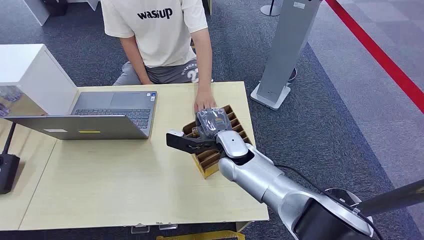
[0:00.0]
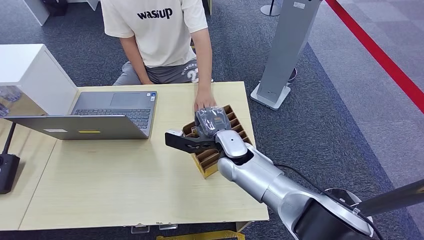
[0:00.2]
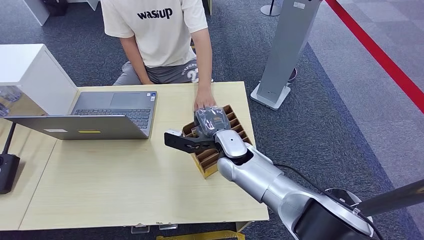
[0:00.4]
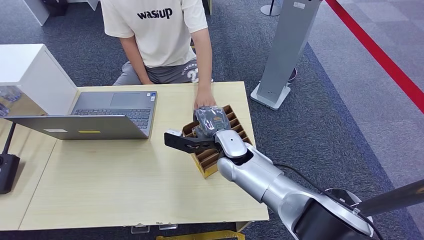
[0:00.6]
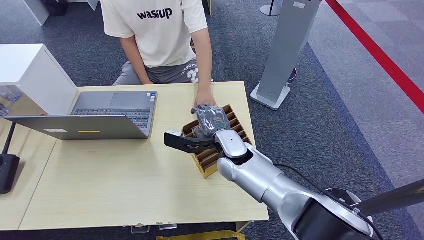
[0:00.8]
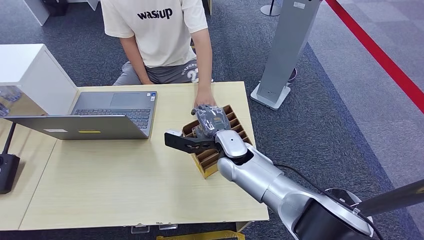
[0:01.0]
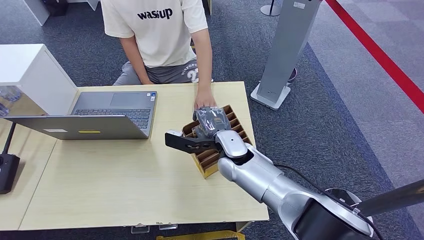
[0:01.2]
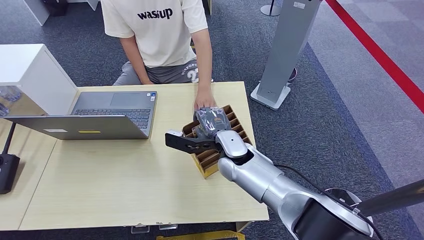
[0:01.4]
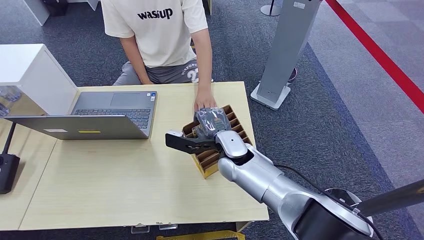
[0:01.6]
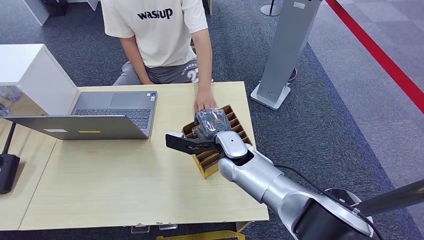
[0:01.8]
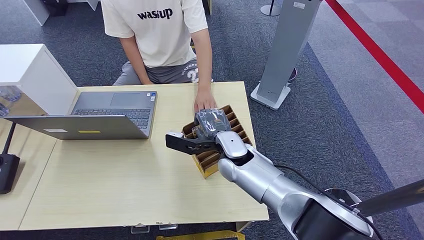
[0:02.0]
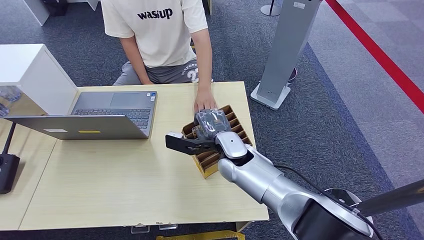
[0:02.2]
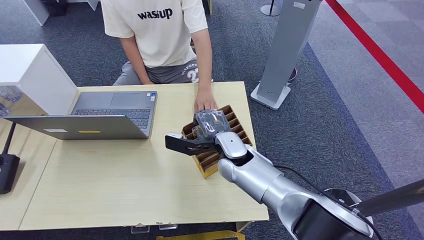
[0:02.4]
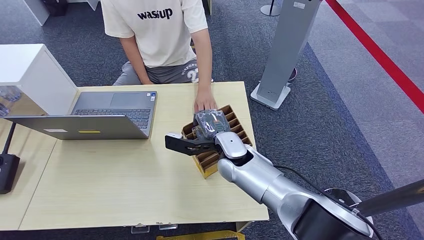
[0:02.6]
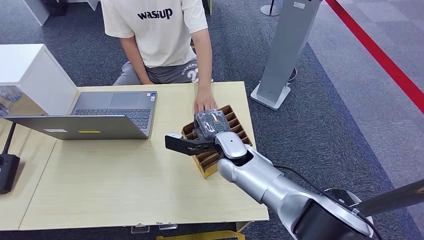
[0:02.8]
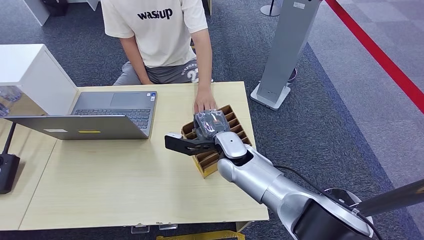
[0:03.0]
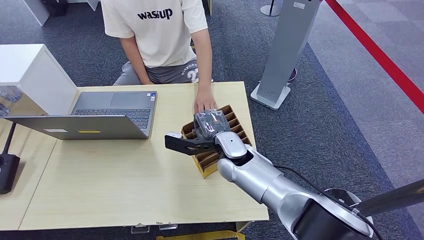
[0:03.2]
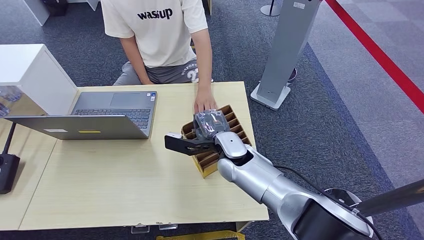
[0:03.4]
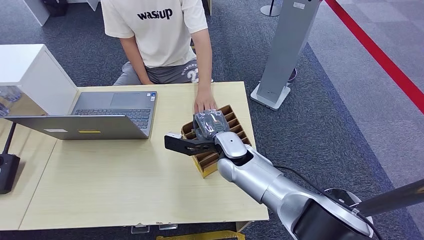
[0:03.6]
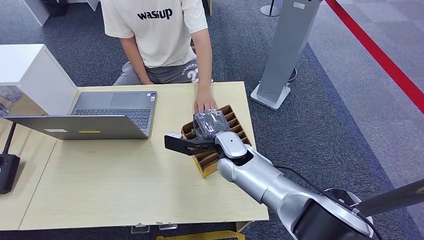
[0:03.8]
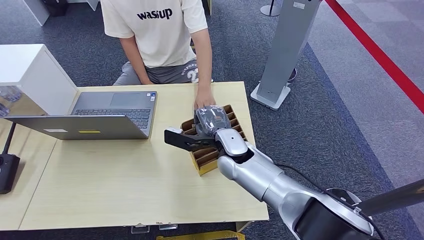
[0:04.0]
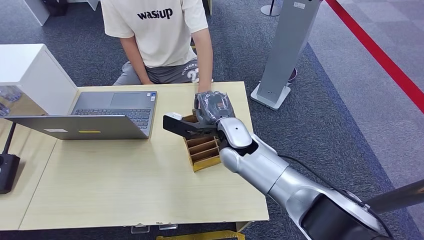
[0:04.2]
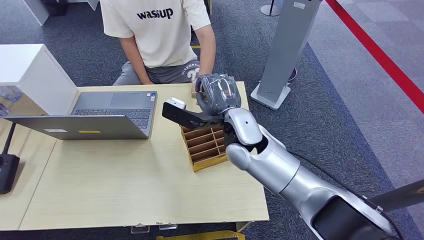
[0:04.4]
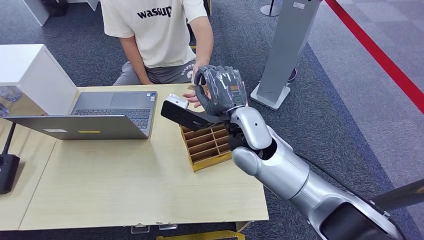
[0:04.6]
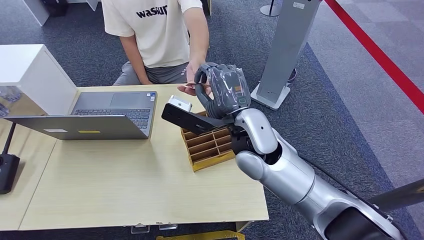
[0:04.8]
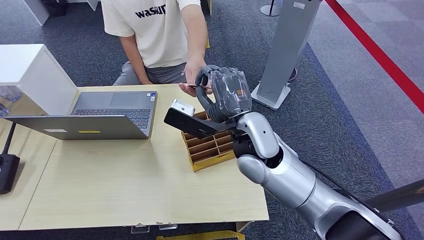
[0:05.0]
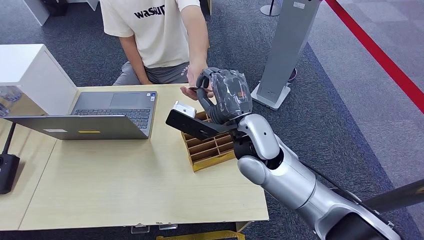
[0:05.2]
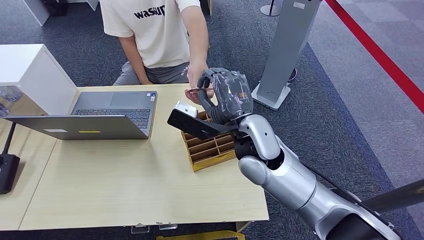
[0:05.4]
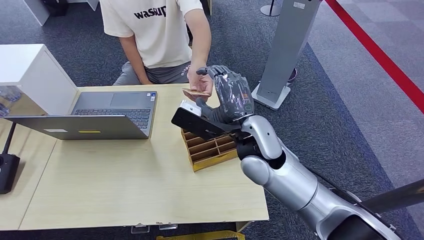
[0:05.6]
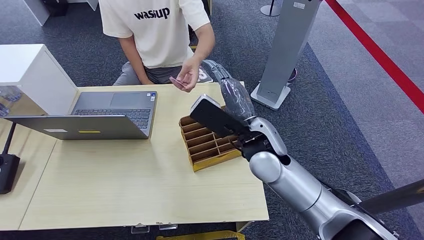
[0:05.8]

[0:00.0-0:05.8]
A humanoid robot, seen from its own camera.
Step, 0:00.0 to 0:04.4: Pick up the key card from the card box.
Step, 0:04.8 to 0:05.8: Hand the key card to the target.
0:01.4 to 0:02.8: Neither hand changes place.
0:02.8 to 0:04.4: The right hand goes some 10 cm upward.
0:04.4 to 0:05.8: The right hand shifts by some 5 cm.

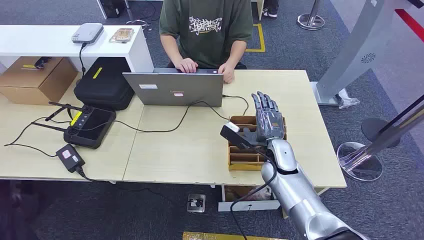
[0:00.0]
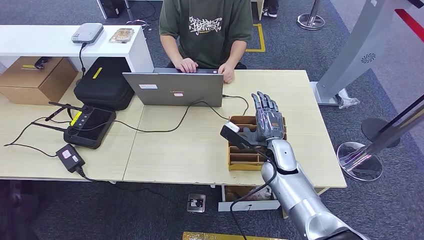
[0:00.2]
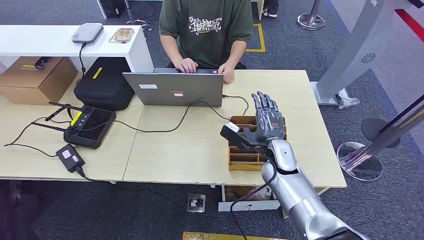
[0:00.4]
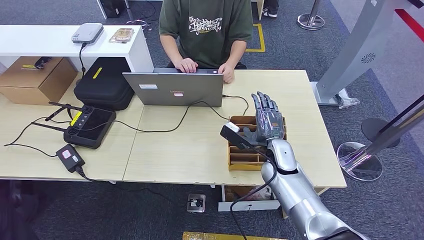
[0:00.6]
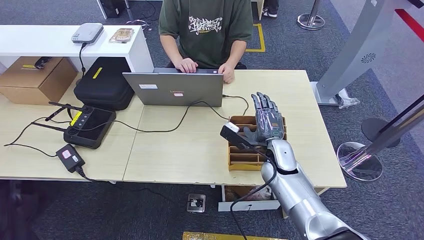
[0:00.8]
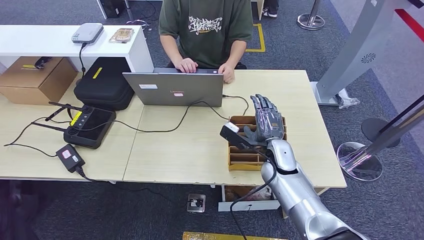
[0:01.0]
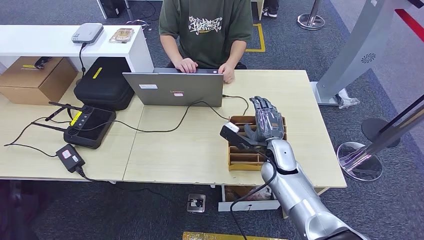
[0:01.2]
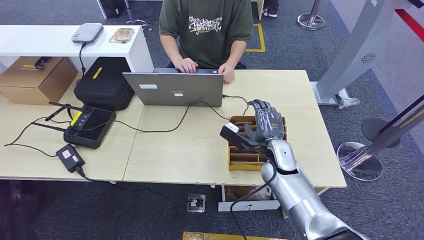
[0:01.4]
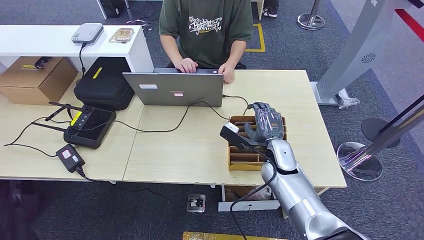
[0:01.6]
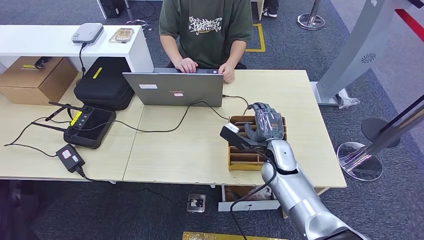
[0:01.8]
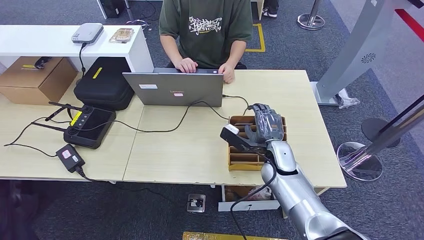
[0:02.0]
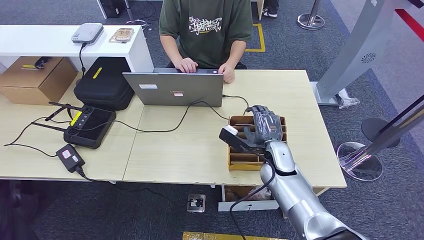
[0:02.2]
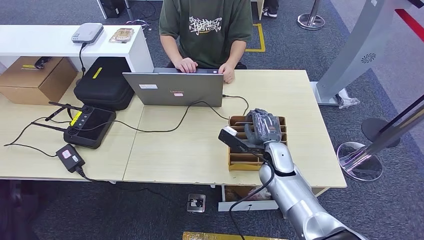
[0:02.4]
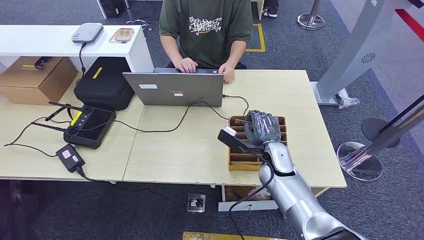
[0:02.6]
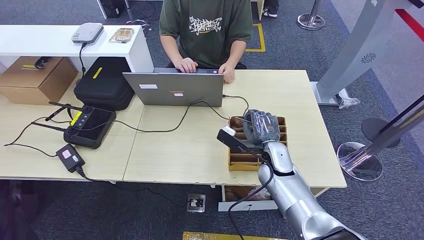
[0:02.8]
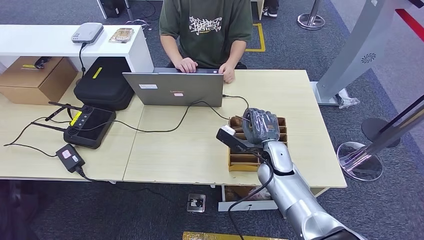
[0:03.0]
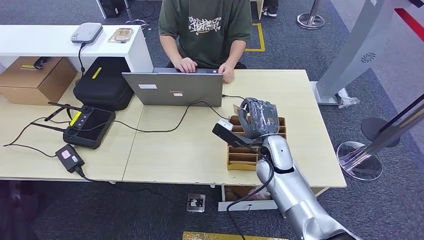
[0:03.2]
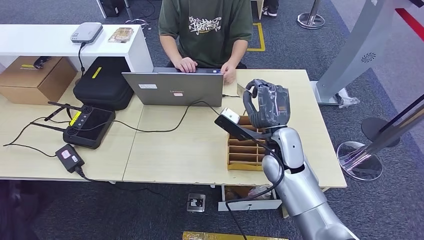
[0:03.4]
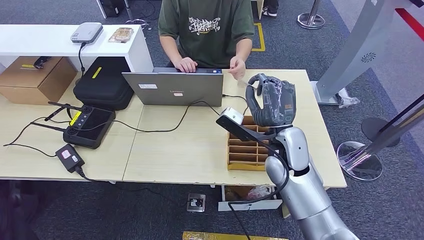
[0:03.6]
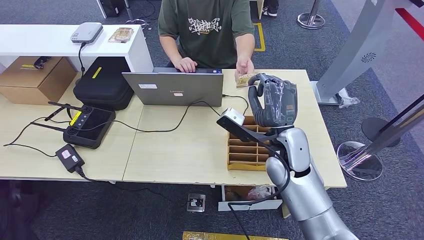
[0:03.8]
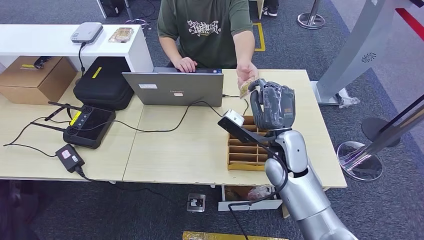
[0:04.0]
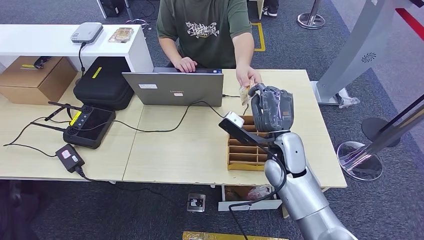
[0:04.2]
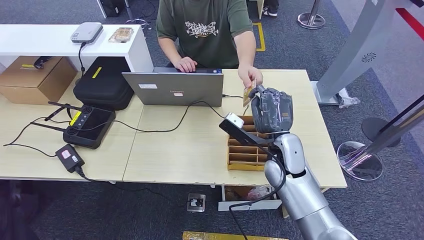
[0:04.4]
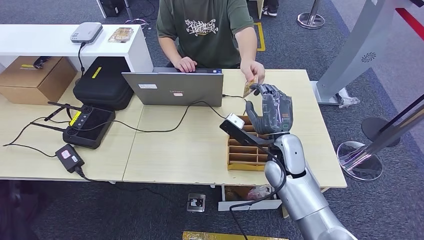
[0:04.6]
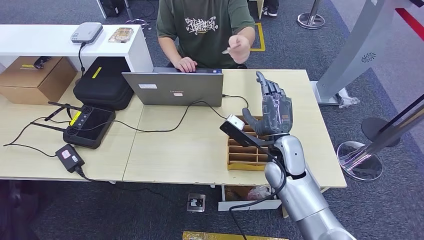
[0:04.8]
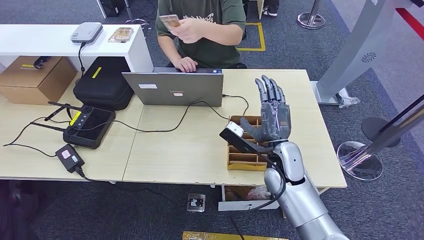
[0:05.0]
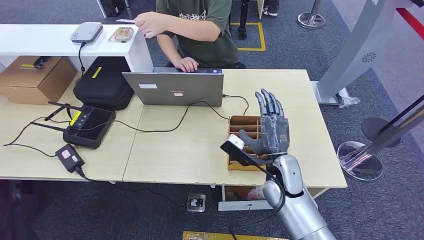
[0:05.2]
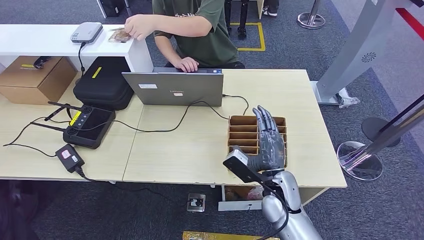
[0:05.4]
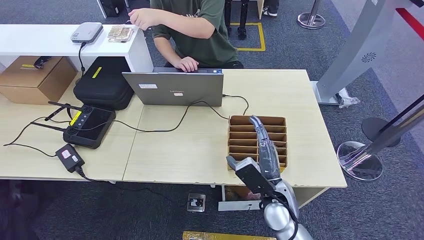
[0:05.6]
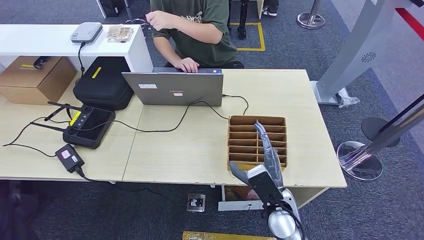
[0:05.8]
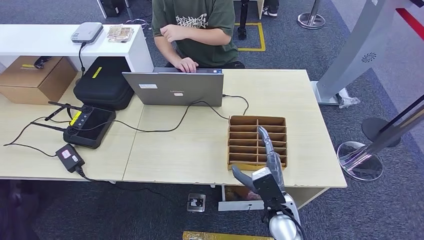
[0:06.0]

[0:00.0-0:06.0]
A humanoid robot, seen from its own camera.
Step, 0:00.0 to 0:03.4: Pick up the key card from the card box.
Step, 0:03.6 to 0:06.0: Hand the key card to the target.
0:01.6 to 0:03.0: Neither hand changes place.
0:03.0 to 0:04.4: The right hand travels upward by approximately 5 cm.
0:04.4 to 0:06.0: The right hand travels backward and downward by about 15 cm.
